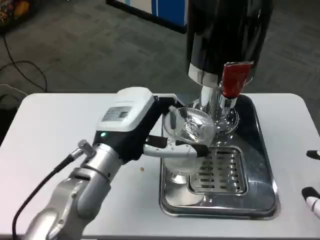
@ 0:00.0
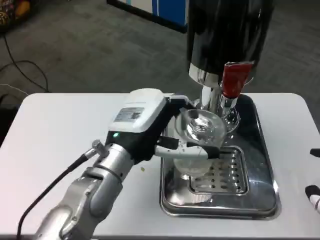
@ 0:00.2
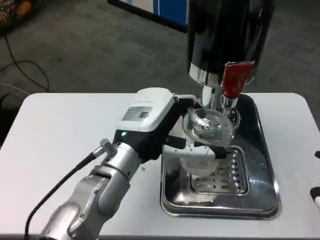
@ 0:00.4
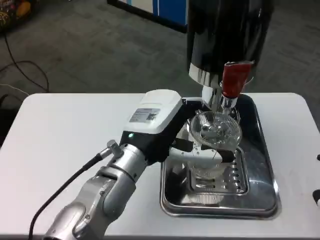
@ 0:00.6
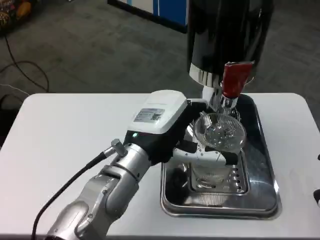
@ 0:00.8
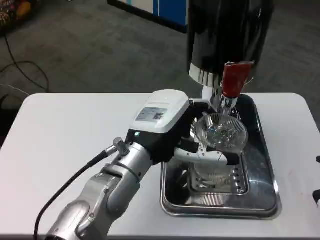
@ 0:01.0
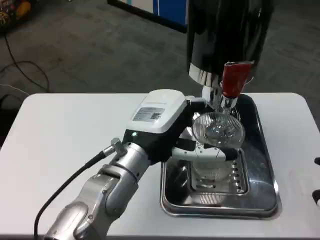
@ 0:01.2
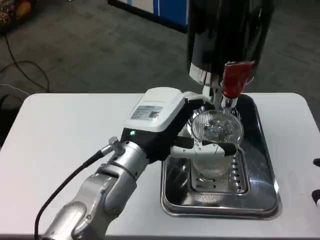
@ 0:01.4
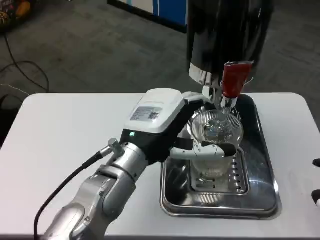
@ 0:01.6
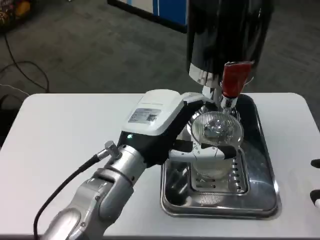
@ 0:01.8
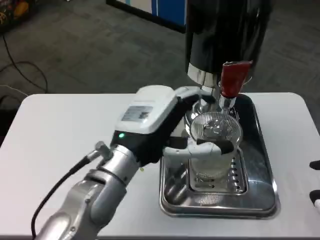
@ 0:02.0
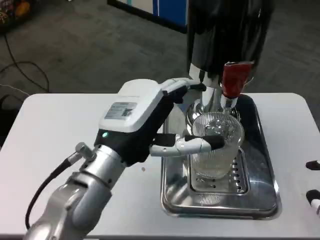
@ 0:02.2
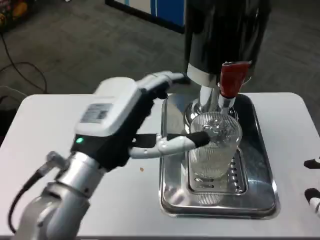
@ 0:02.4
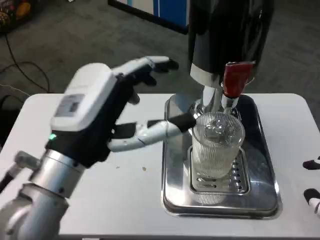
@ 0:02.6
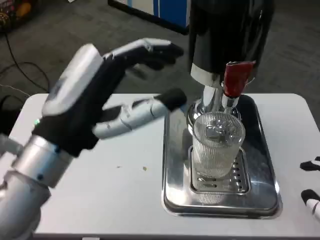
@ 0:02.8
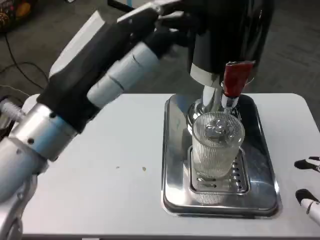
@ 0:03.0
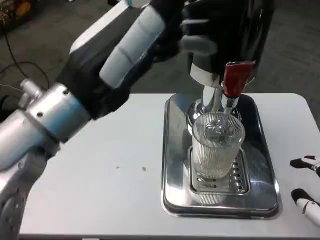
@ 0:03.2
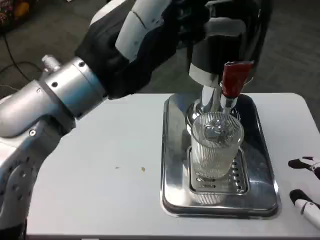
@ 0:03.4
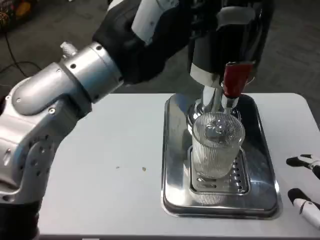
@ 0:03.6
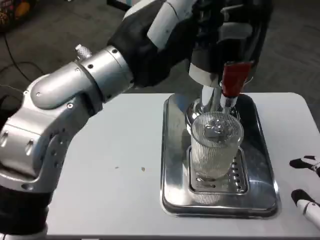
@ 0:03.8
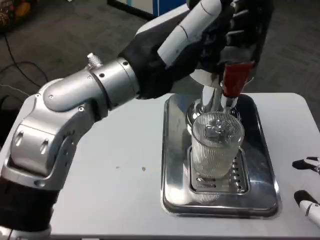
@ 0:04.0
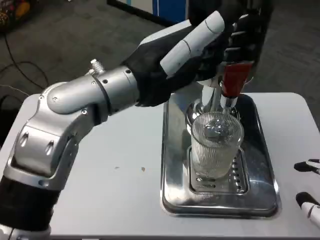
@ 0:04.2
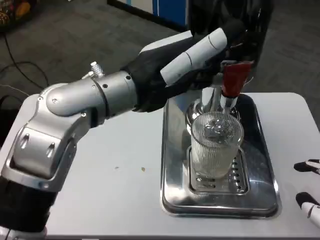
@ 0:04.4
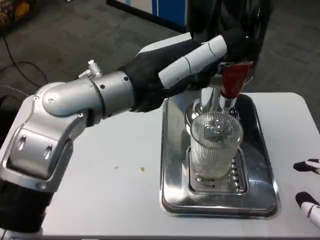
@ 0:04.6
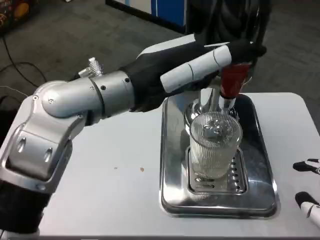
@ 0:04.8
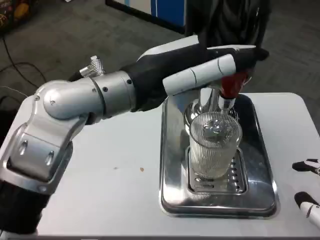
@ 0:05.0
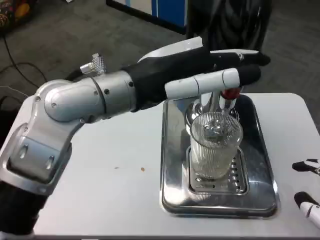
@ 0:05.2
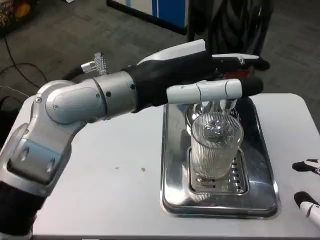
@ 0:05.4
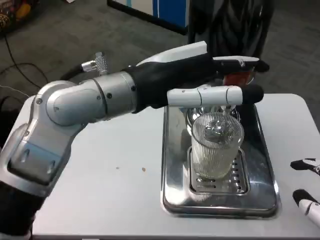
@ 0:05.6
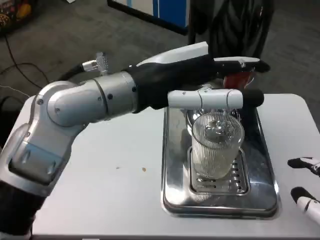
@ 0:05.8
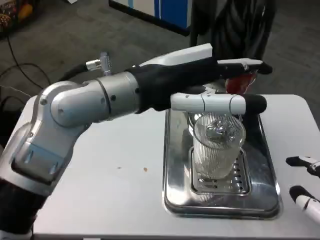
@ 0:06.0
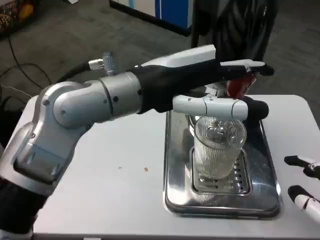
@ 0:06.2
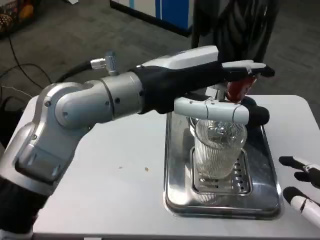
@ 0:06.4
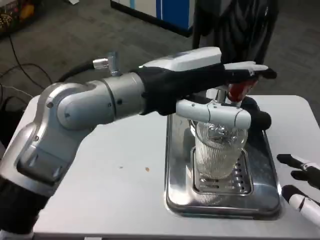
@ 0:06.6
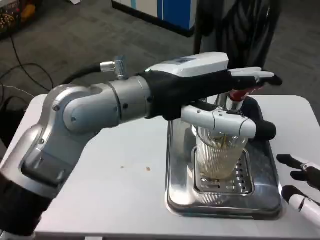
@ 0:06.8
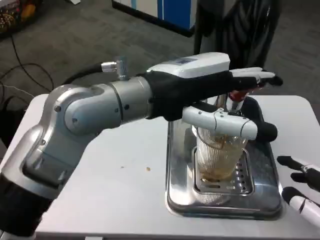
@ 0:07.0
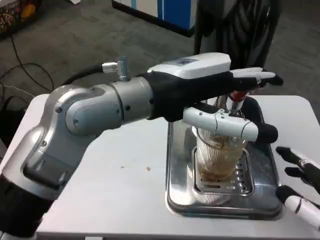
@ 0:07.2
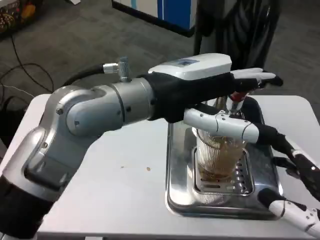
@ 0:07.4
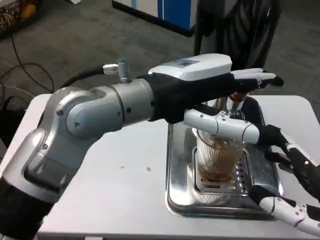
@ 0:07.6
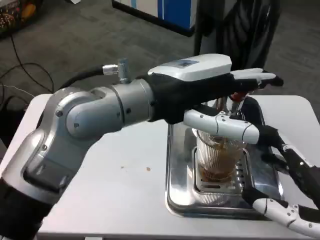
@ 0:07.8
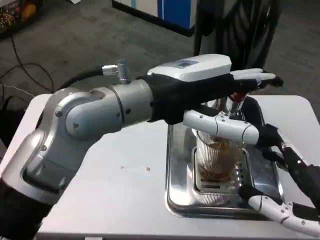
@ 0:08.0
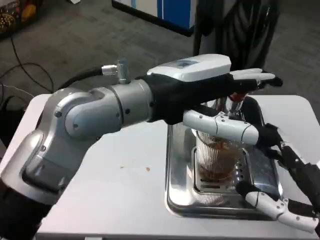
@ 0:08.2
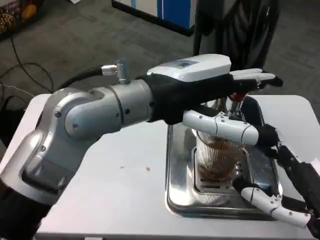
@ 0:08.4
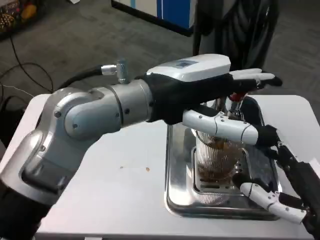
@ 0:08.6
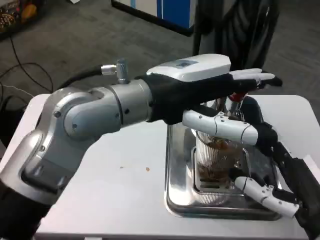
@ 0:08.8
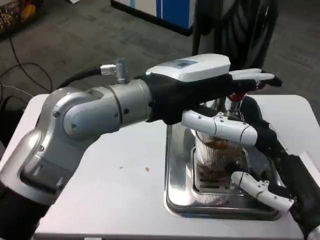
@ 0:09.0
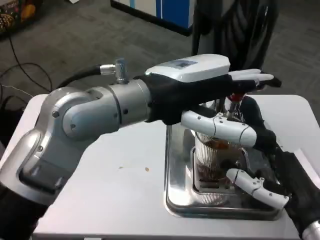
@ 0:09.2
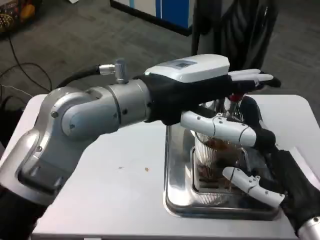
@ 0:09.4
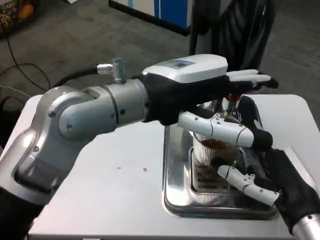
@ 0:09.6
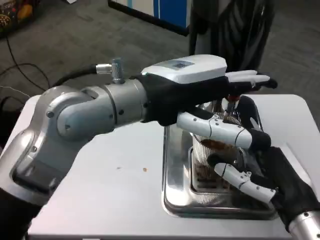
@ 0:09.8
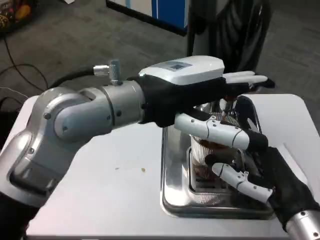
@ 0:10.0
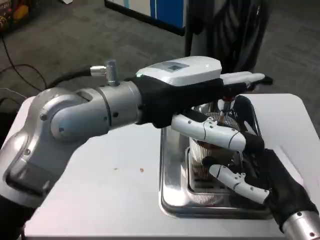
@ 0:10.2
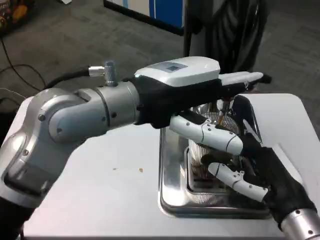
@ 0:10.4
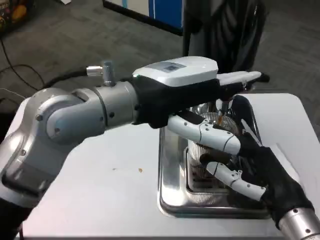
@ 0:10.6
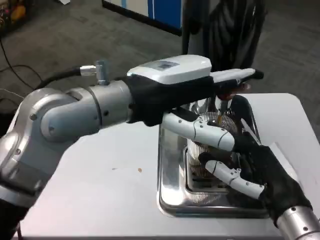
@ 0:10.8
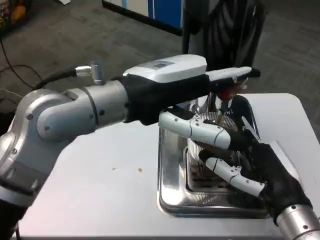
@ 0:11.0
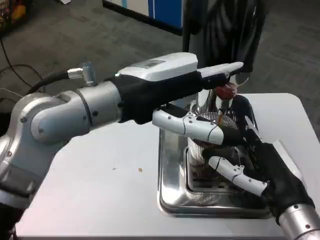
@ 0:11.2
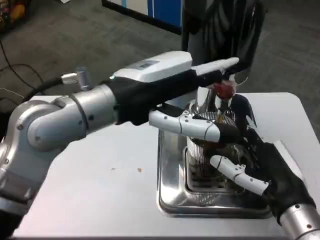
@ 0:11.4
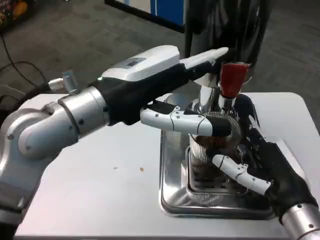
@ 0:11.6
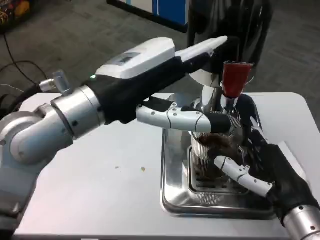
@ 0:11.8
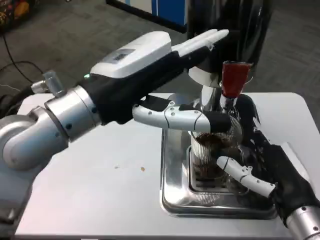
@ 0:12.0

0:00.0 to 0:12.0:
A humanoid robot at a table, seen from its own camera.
Task of the whole recording: Grasp the cup under the faucet to collect the drink, then remove the cup.
0:01.6 to 0:03.0: The left hand heads upward, backward and to the left, covering roughly 15 cm.
0:03.0 to 0:04.4: The left hand goes about 10 cm forward.
0:07.6 to 0:09.0: The right hand moves some 5 cm.

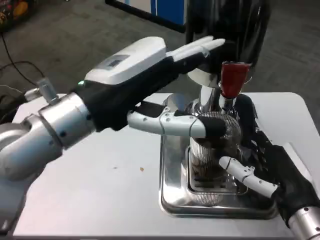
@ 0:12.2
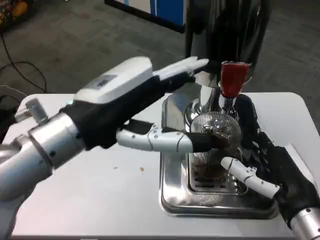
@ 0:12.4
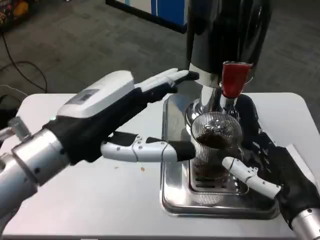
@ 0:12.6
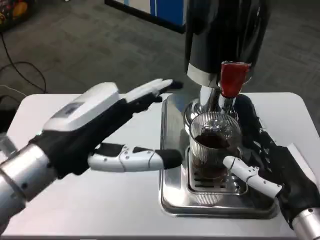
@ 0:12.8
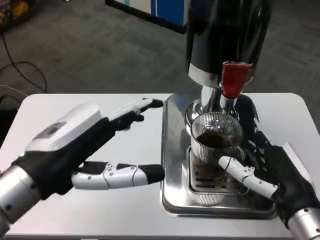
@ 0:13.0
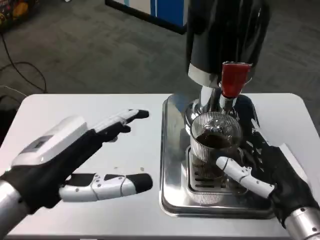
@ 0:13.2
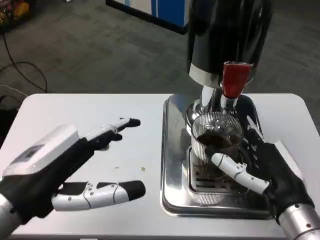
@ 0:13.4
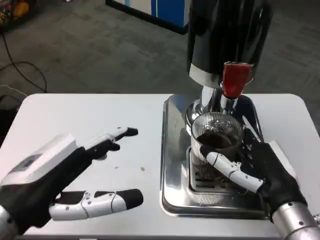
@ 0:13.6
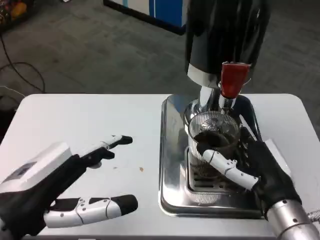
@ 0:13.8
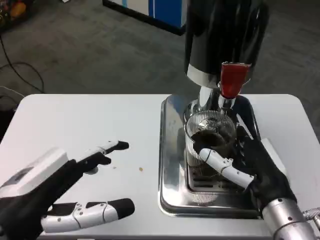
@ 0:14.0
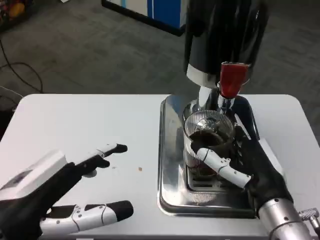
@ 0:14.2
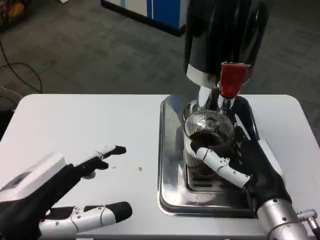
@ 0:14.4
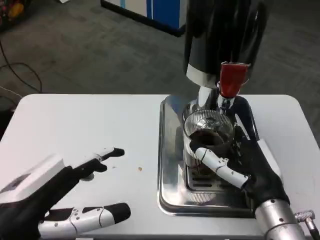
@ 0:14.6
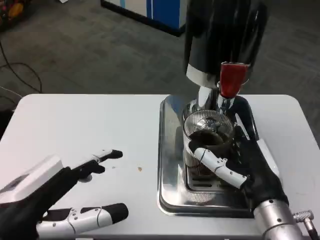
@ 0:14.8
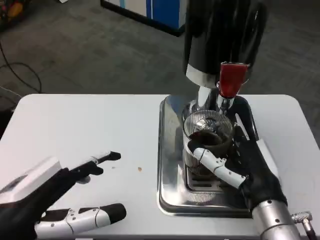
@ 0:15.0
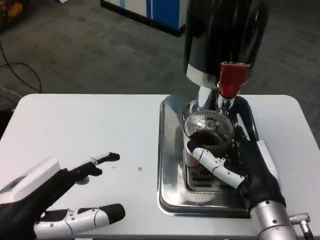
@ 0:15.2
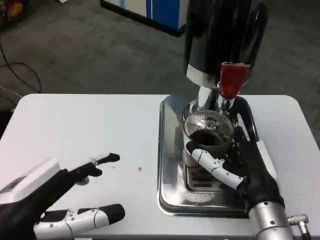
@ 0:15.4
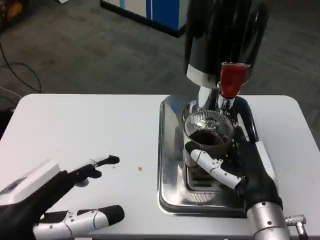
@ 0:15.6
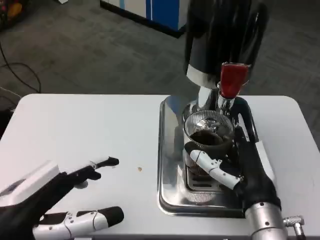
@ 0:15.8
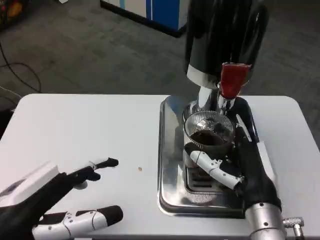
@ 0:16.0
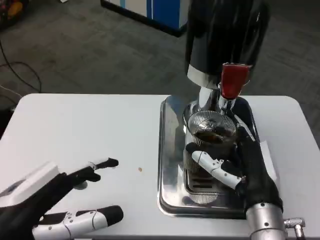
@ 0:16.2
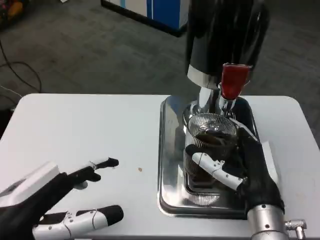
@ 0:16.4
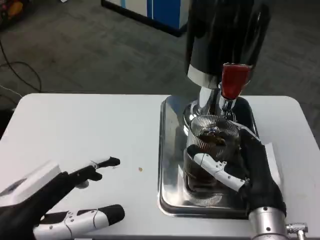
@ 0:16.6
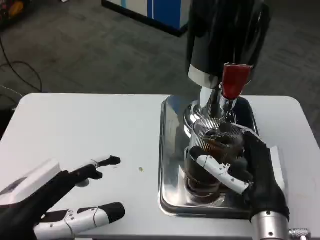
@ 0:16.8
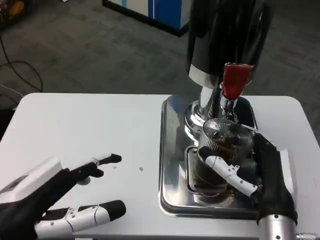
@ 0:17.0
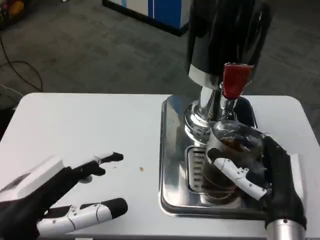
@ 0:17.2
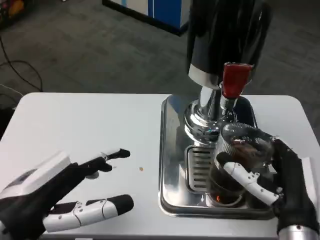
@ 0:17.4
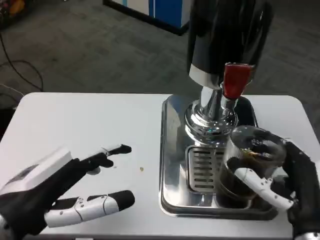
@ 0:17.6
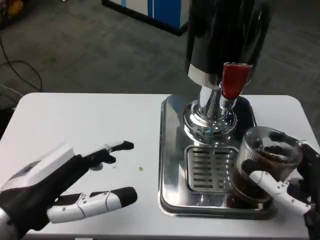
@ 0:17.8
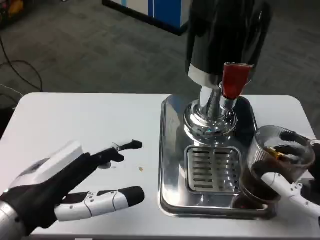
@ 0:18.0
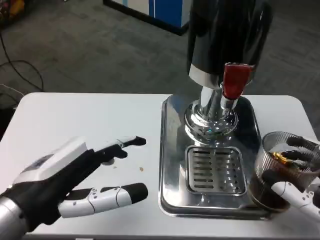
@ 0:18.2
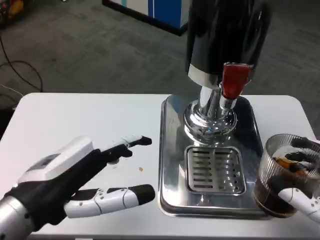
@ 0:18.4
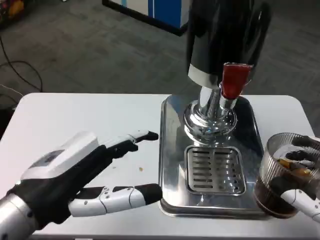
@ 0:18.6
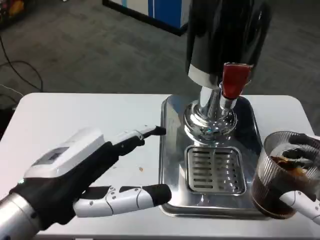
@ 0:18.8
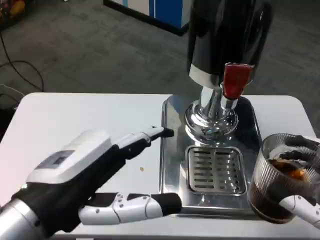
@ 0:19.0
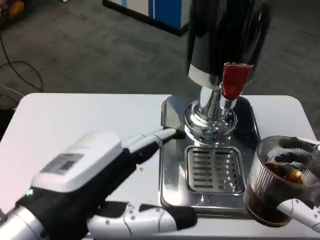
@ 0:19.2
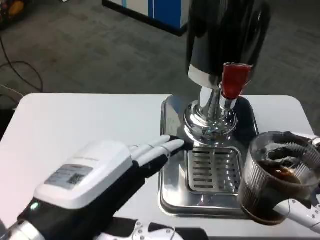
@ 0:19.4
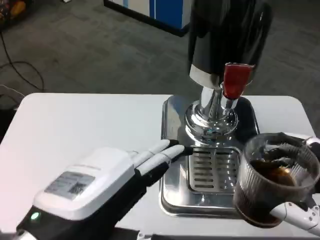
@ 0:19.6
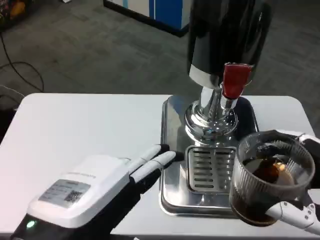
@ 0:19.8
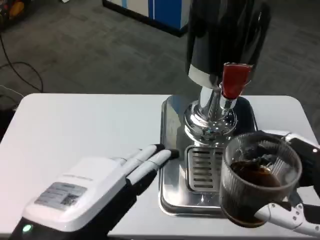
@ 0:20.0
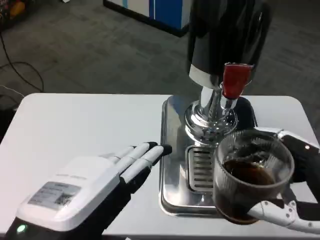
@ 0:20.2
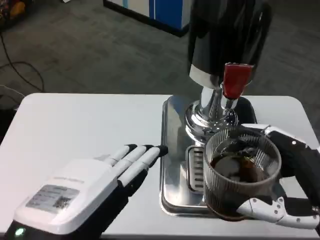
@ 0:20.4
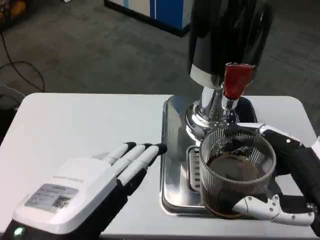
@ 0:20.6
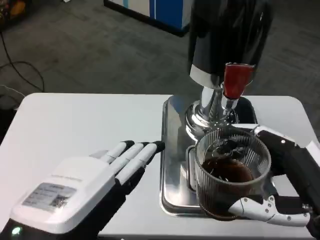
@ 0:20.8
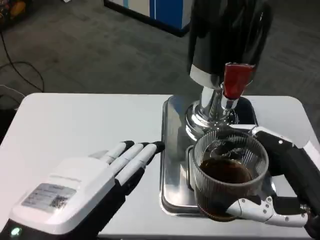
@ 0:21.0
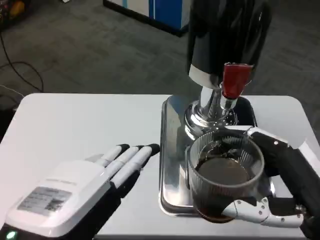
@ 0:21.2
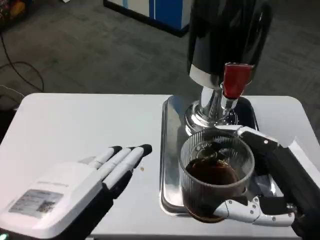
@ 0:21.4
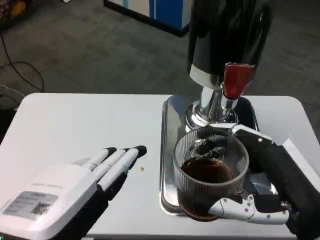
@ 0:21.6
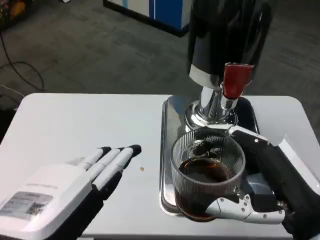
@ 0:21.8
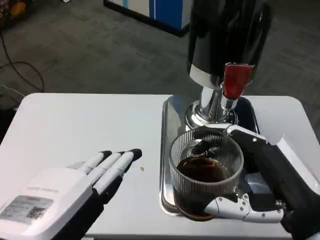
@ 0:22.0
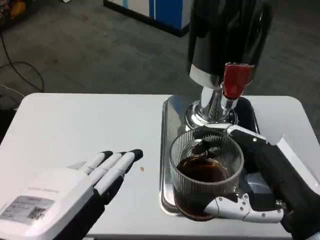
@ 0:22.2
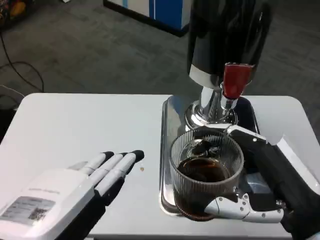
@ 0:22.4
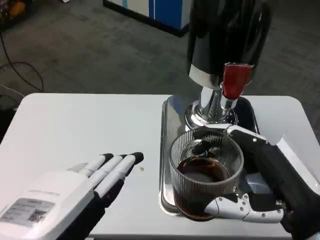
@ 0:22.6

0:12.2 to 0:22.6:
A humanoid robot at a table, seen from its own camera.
Task of the whole recording: Grasp the cup under the faucet to collect the drink, then remove the cup.
0:12.2 to 0:13.6: The left hand travels downward, backward and to the left by some 15 cm.
0:15.2 to 0:16.6: The hands stay close to where they were, moving slightly.
0:16.6 to 0:18.2: The right hand shifts some 10 cm to the right and backward.
0:18.2 to 0:19.6: The left hand heads backward and to the right, covering approximately 10 cm.
0:21.2 to 0:22.6: The hands move only a little.
